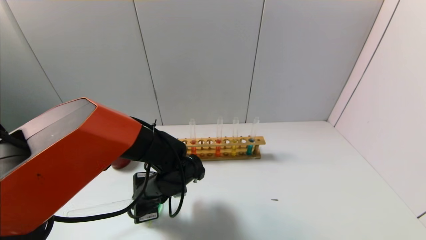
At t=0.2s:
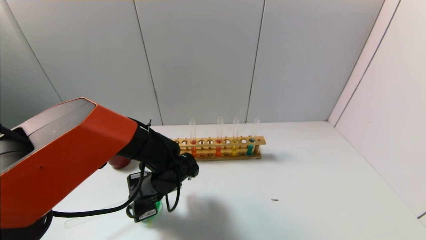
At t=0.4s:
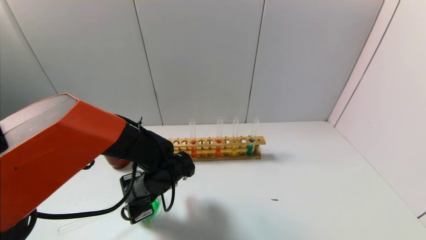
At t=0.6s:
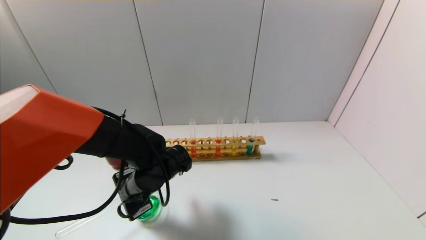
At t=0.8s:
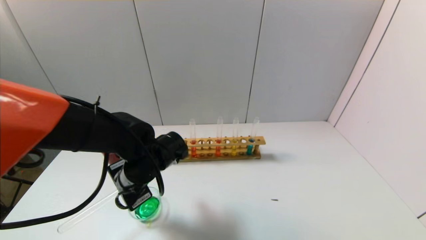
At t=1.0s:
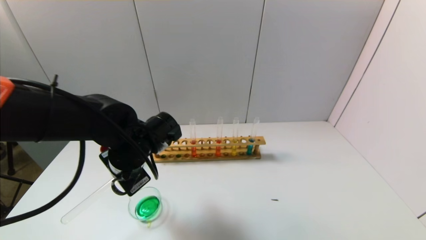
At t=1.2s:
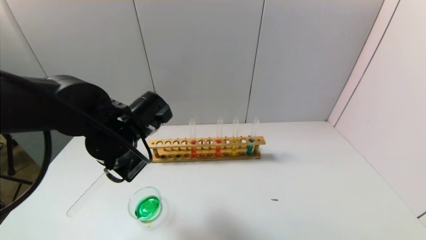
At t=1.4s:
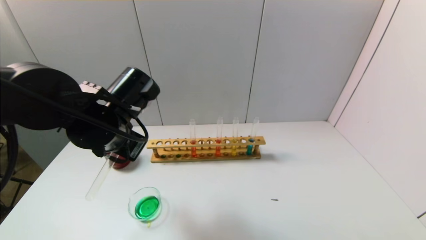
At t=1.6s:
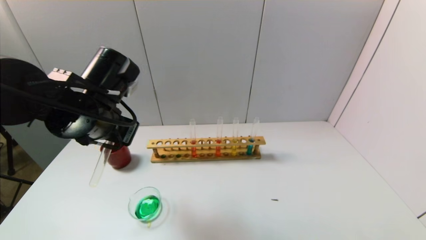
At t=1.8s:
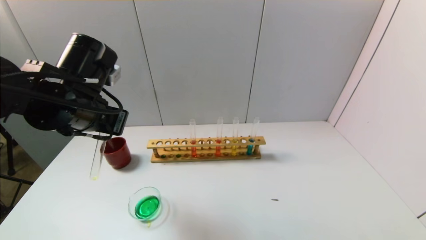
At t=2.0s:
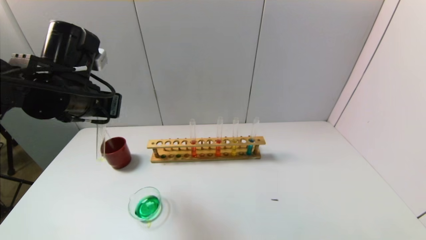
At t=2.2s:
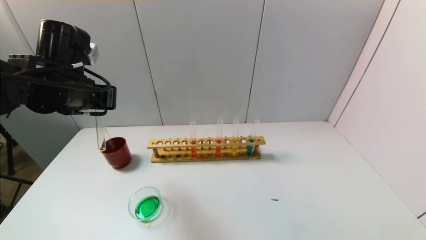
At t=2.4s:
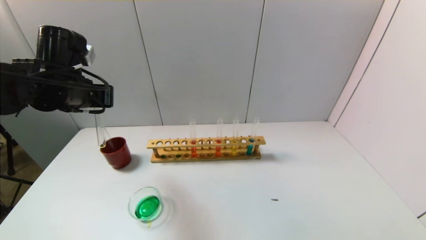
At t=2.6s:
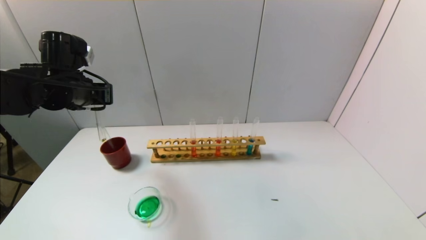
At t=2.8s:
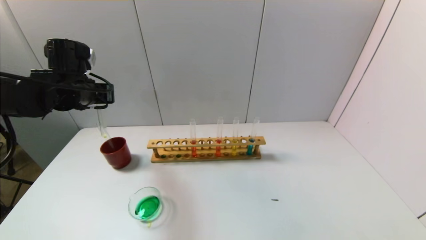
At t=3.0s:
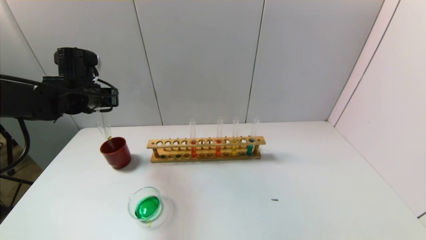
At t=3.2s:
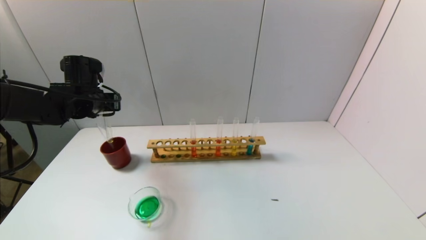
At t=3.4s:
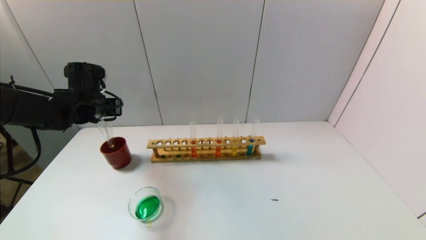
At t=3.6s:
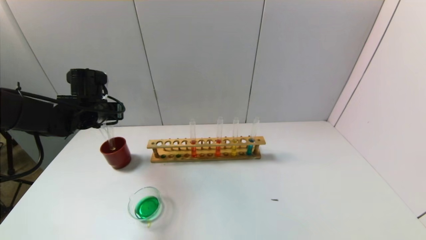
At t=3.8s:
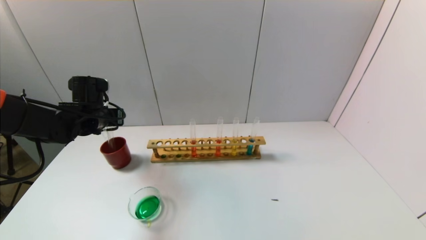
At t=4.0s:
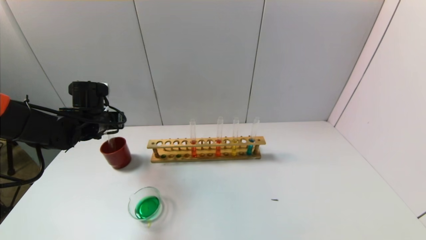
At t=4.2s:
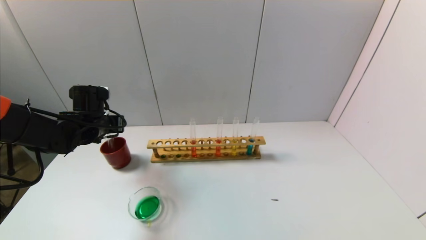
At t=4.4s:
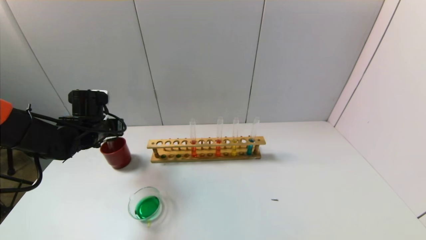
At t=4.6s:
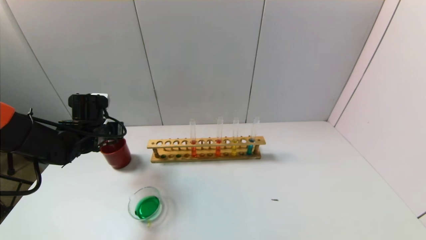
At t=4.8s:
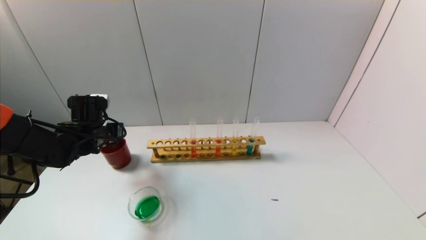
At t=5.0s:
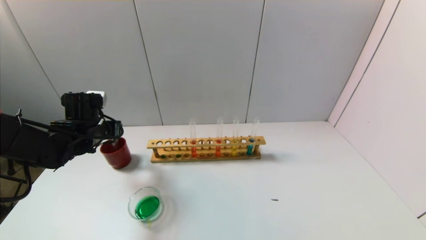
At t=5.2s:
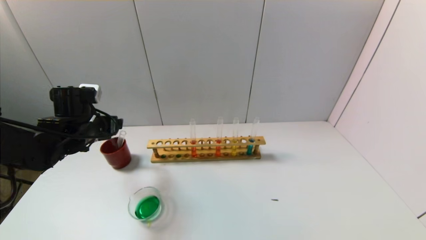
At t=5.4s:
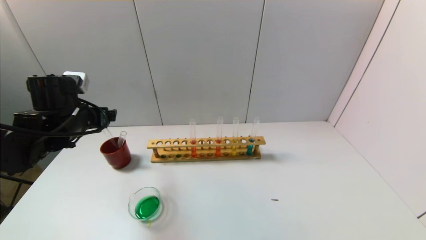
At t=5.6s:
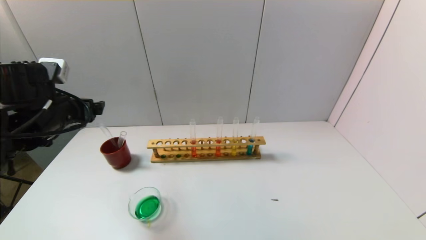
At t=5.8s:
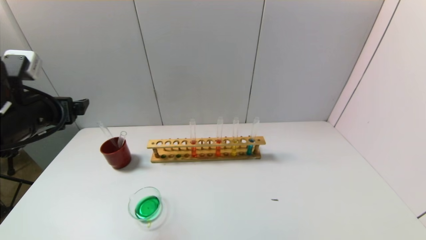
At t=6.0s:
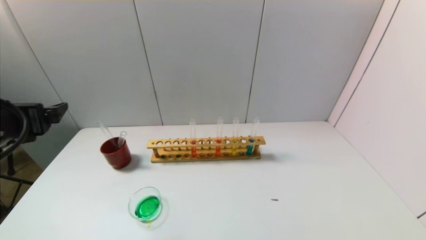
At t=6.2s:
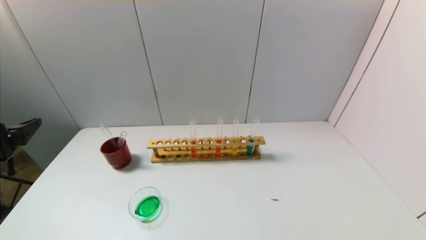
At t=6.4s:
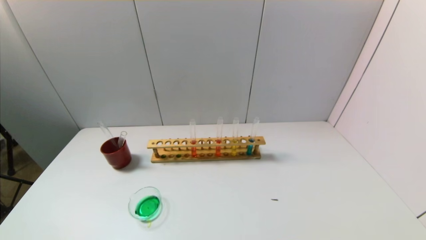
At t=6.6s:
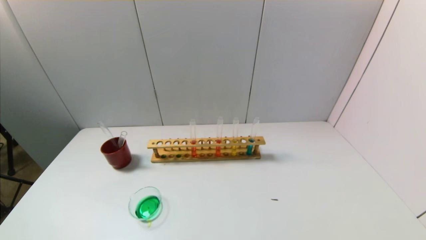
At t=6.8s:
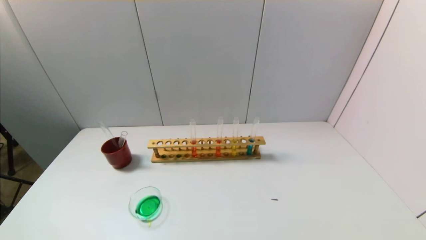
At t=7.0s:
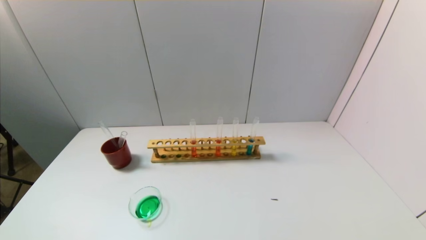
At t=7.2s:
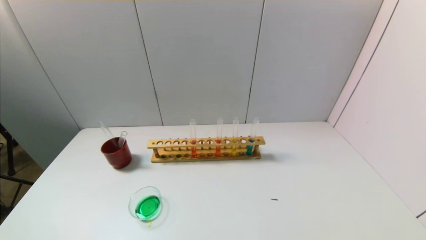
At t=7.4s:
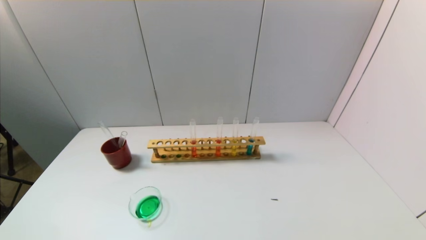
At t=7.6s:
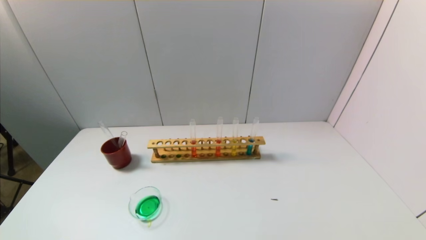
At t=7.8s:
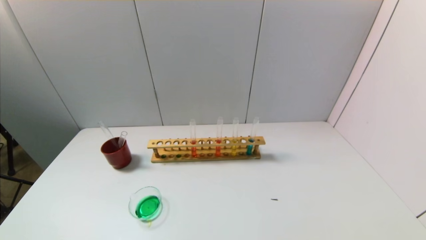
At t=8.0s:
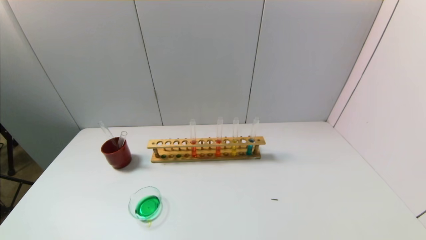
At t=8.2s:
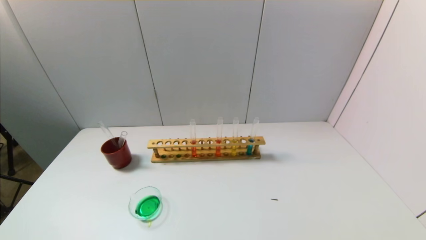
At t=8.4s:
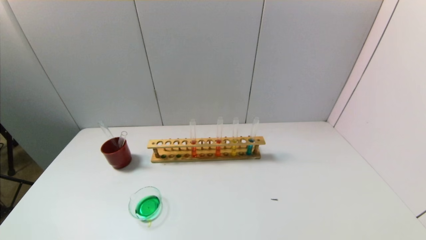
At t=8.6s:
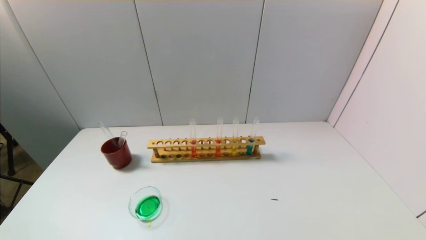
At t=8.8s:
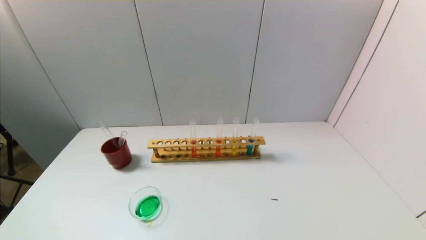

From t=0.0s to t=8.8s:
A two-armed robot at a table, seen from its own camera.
Task of the whole recording: pick up the test tube with yellow pigment and the test tube with blue pigment by grippers and pour them into the beaker.
Step, from t=0.0s to t=5.4s: Place the test tube into the brown cup with the left gripper.
From t=0.0s to t=1.4s: The left gripper travels upward by roughly 15 cm.
From t=1.4s to t=3.0s: The left gripper goes some 15 cm forward and to the left.
From t=3.0s to t=4.4s: The left gripper heads downward, covering about 10 cm.
From t=4.4s to t=5.8s: The left gripper moves backward and upward, about 15 cm, and opens up.
From t=5.8s to t=7.4s: The left gripper travels backward and downward by approximately 30 cm.
